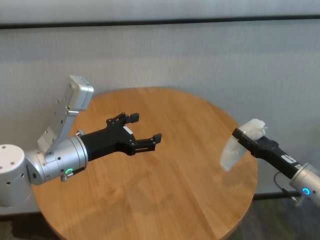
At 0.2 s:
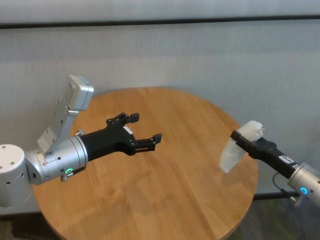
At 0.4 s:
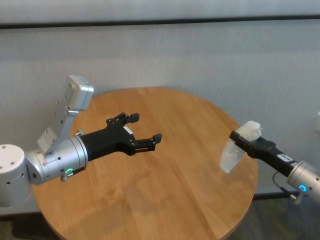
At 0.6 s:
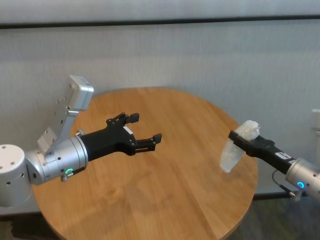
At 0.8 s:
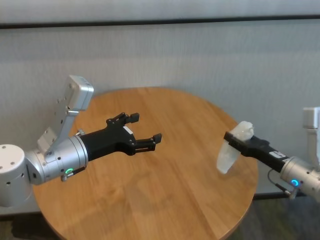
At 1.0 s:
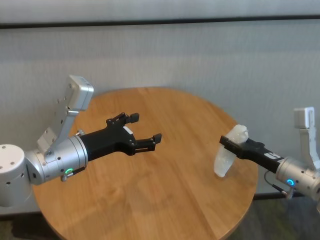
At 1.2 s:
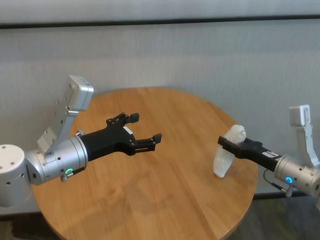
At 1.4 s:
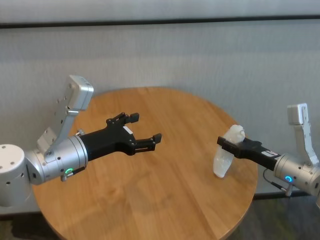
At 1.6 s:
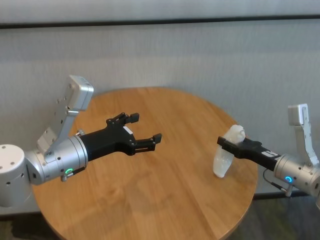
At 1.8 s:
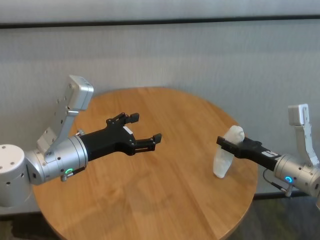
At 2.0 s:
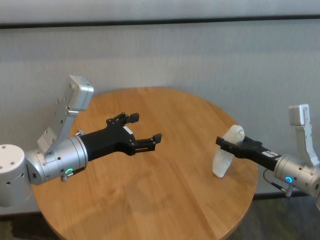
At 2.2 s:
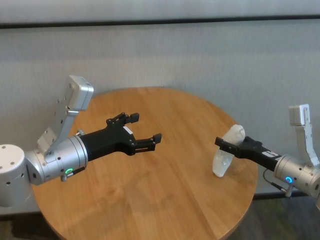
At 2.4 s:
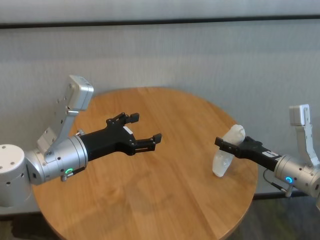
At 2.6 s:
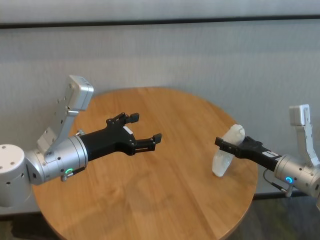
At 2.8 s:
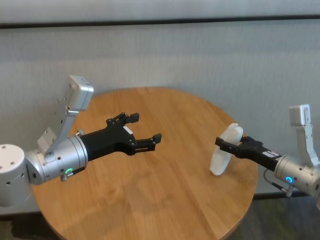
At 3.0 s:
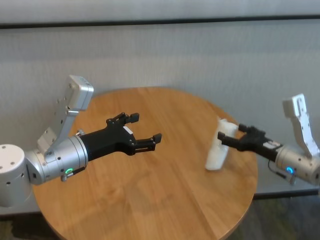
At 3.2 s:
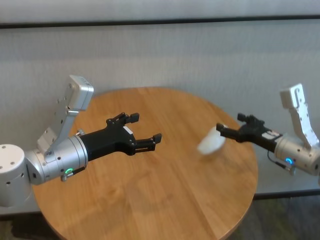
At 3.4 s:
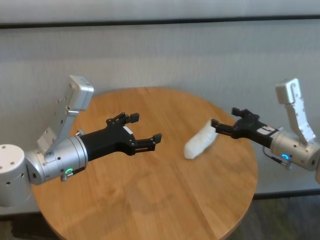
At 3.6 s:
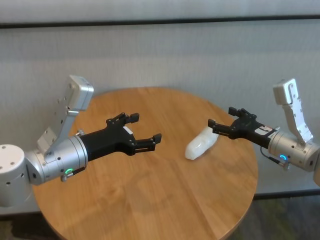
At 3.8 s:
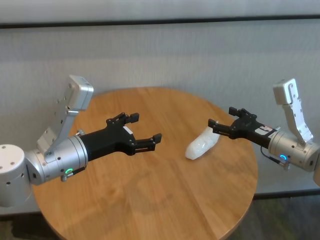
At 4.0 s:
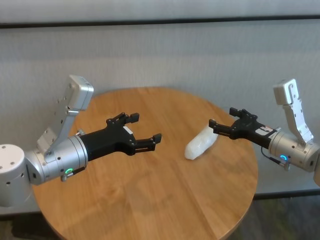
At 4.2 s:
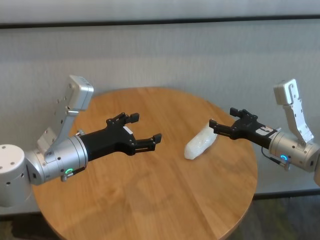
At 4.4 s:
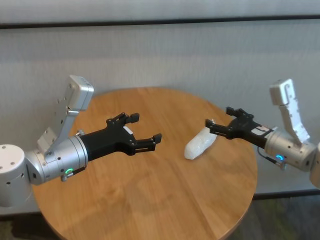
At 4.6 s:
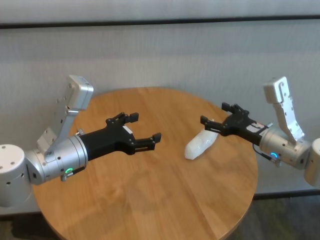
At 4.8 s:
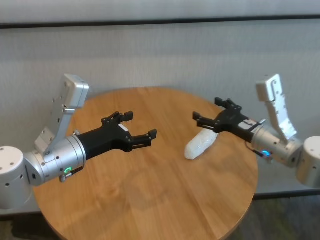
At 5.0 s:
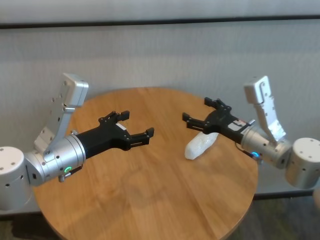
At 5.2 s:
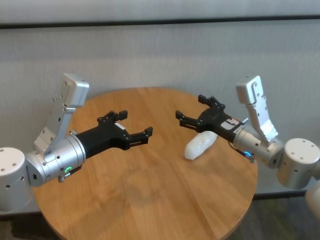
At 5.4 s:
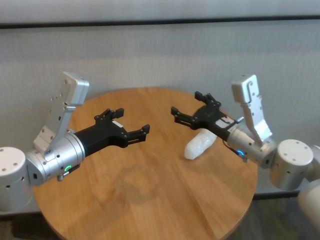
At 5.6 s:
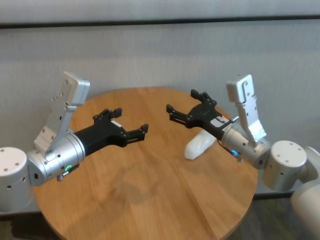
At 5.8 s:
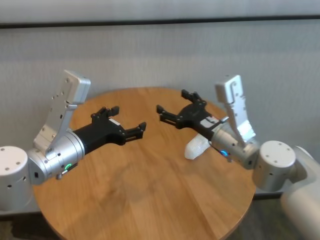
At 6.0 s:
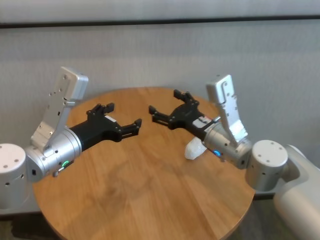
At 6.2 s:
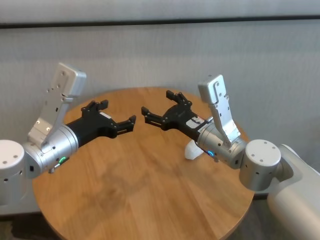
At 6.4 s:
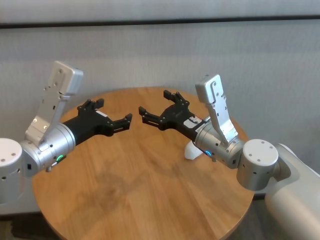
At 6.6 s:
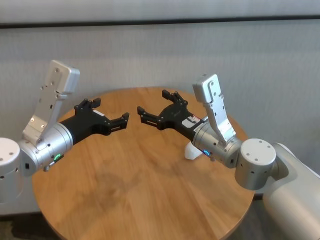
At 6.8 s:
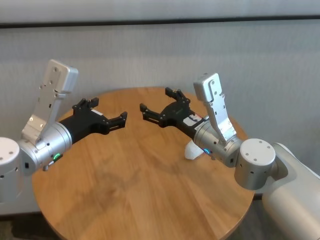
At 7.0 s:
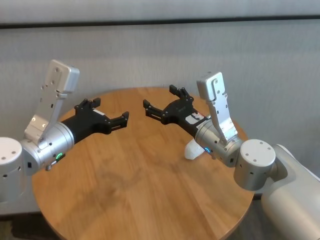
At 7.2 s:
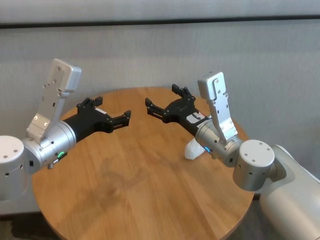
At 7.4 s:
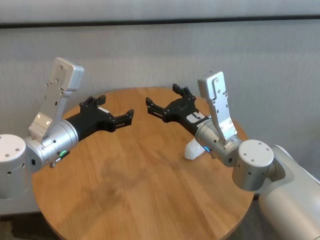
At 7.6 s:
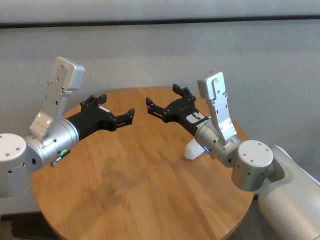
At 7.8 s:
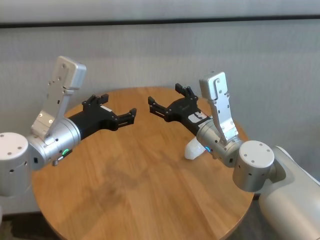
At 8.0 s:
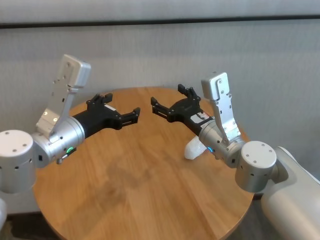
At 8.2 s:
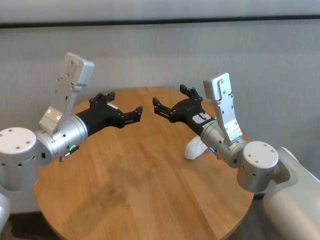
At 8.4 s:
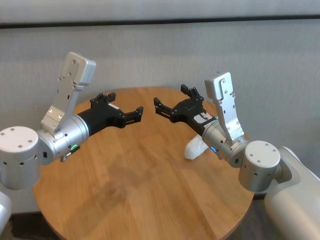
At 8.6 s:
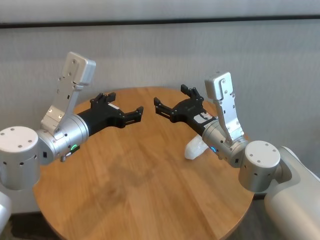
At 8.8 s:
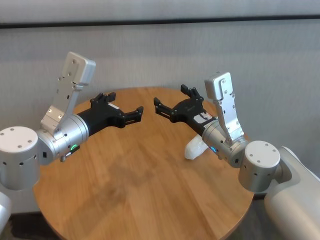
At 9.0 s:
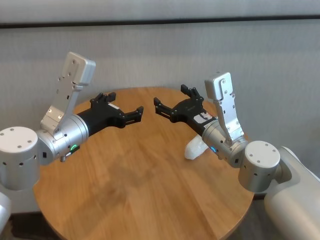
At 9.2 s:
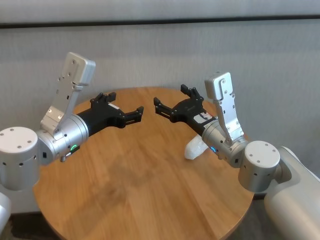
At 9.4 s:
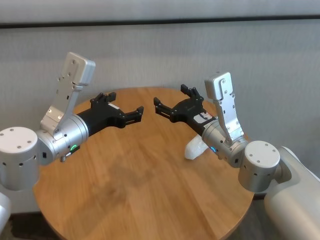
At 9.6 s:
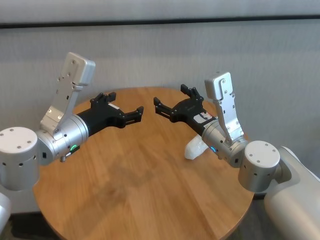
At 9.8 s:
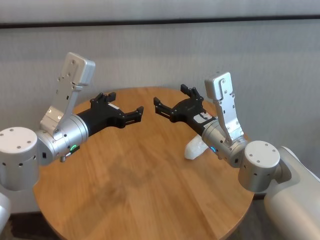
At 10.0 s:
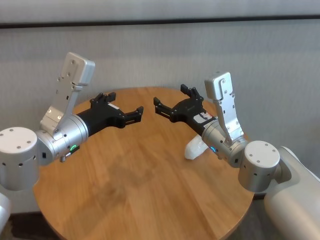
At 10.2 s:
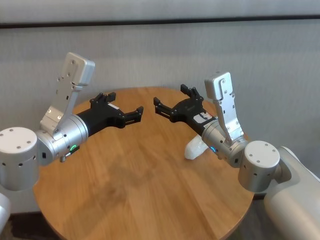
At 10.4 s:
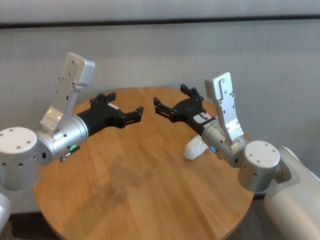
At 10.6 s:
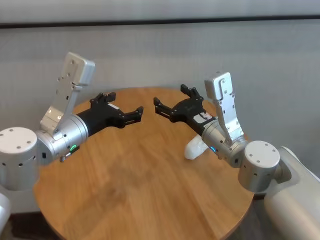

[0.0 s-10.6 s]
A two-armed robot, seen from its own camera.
Task of the whole recording: One hand took the sandbag from the other hand and placed it on the table.
Step, 0.0 to 3.6 s: Place the paper ball on the table with right gripper.
